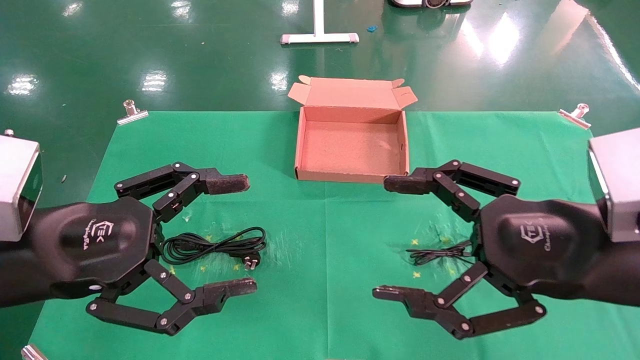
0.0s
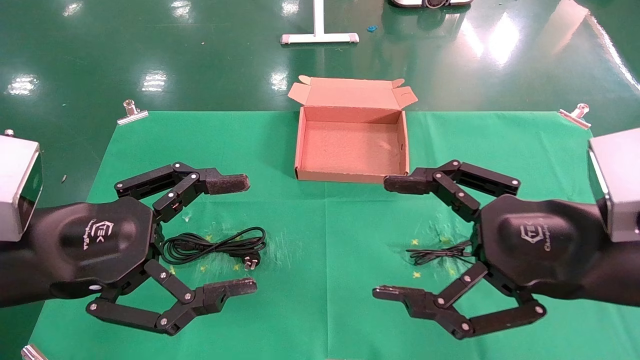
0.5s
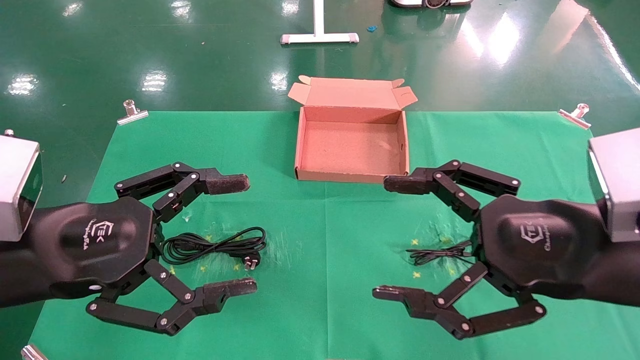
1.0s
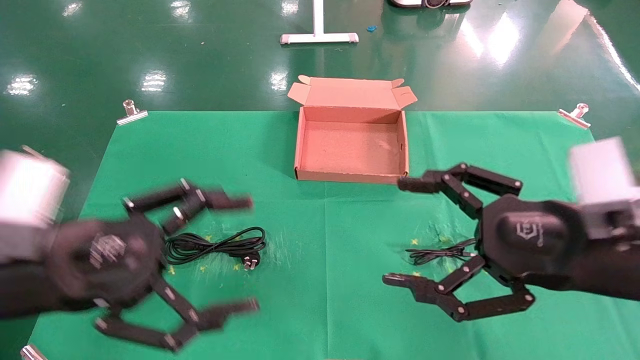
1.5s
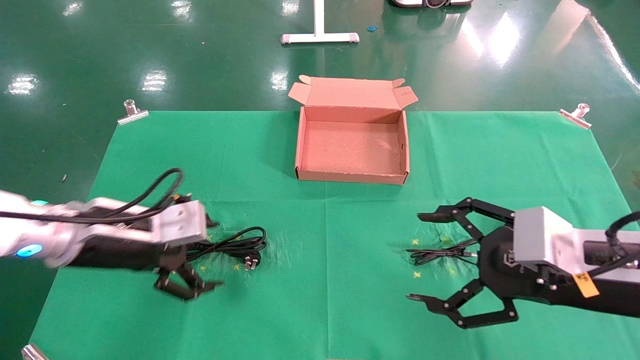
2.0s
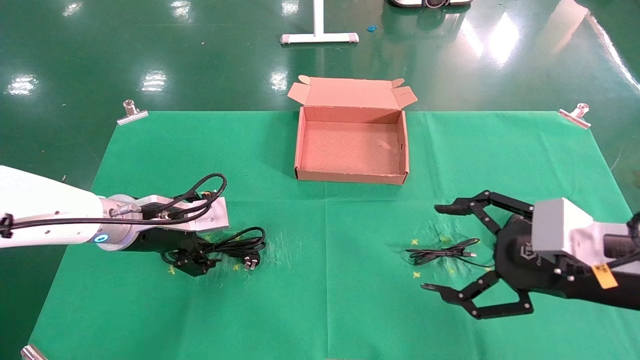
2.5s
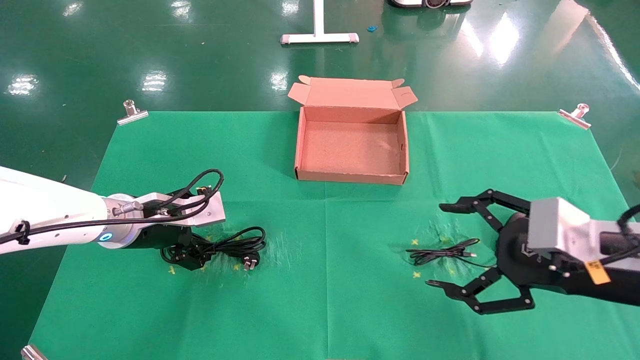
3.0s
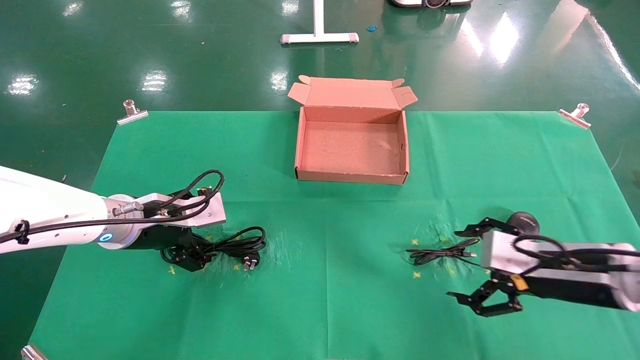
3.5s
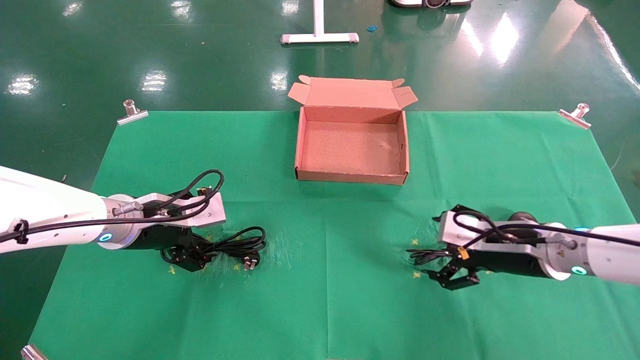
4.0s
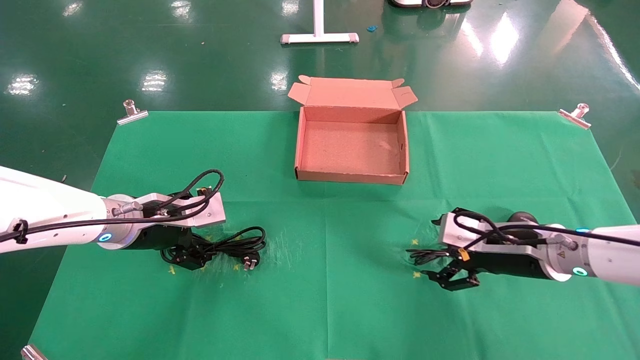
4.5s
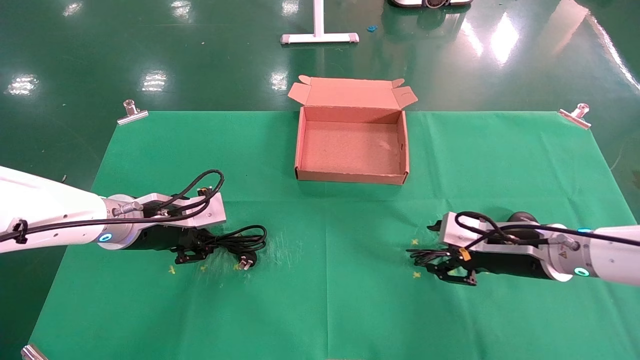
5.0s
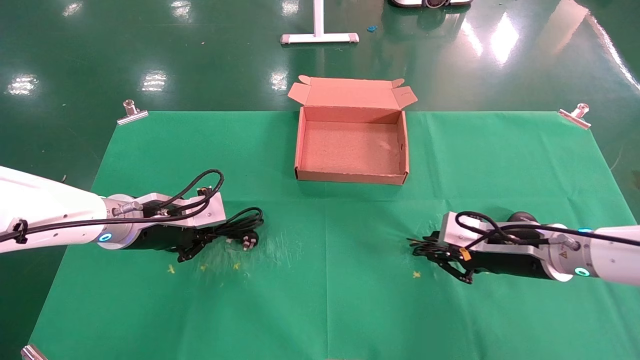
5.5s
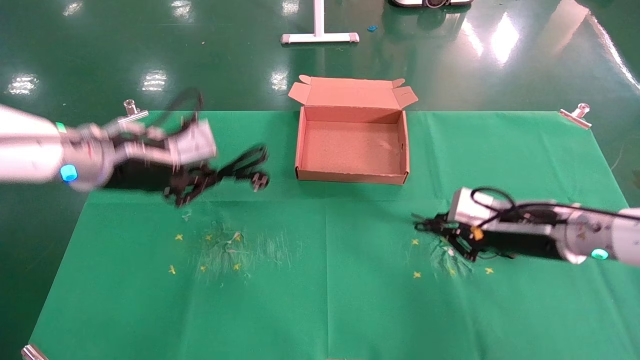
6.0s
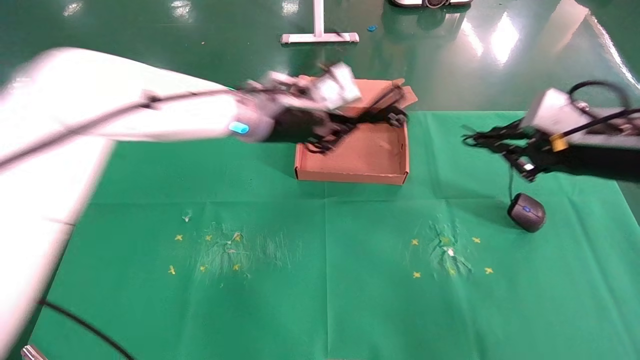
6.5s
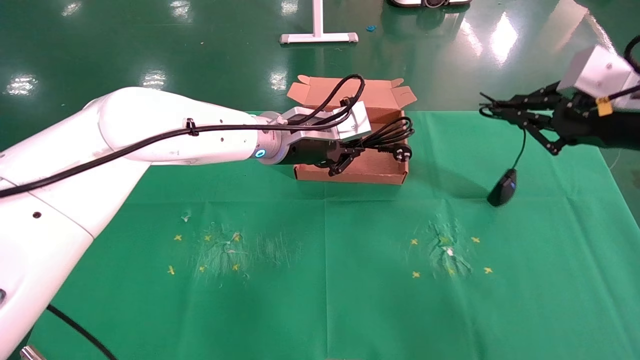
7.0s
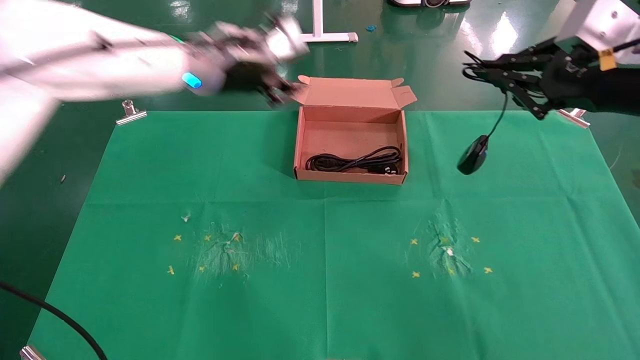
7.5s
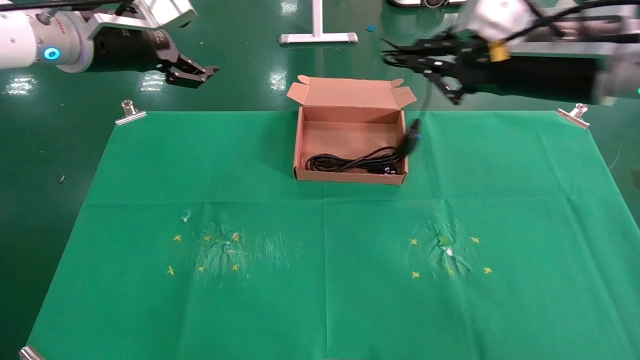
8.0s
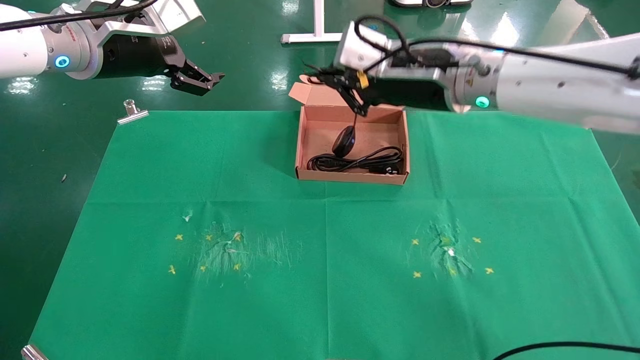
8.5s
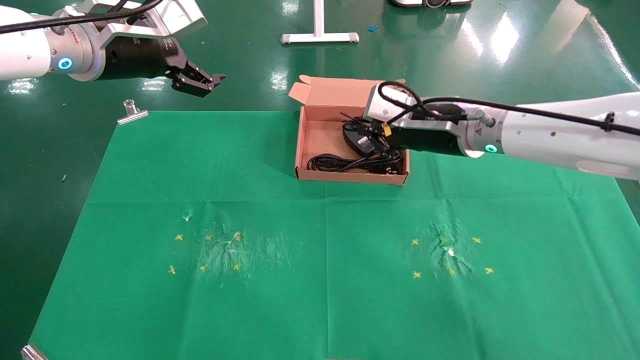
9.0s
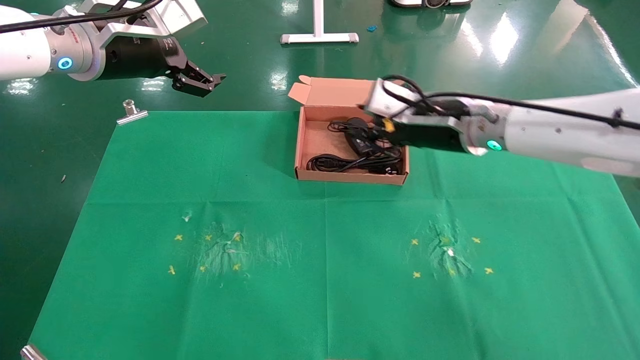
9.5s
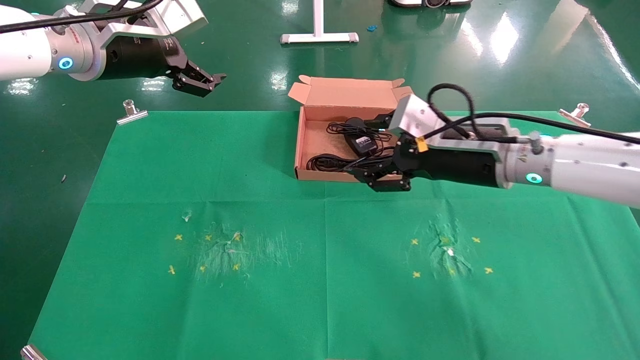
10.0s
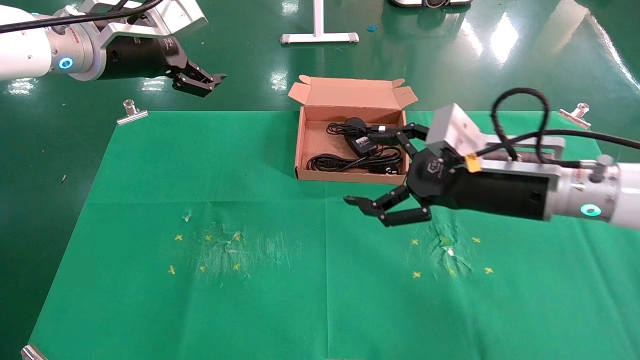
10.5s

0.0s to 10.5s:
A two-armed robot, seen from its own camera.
Task of the whole recording: grasp data cable left put into box grasp mouse right put into box.
Step, 2.0s to 5.5s: Simultaneously pick up the mouse and power cord from the accessory packaging area.
Step, 6.0s to 9.5s: Place the mouse and power cord into the box.
0.0s to 2.0s: The right gripper moves roughly 5 cm. The left gripper goes approximately 15 cm forward and downward.
2.0s to 4.0s: The left gripper travels forward by approximately 5 cm. Meanwhile the right gripper goes about 15 cm forward and downward.
4.0s to 6.5s: The left gripper goes roughly 20 cm to the right and upward, and closes its fingers. The right gripper moves upward and to the right, roughly 15 cm, and closes.
6.5s to 8.5s: The left gripper is displaced to the left and upward by some 20 cm, and opens its fingers. Meanwhile the right gripper moves to the left and forward, some 20 cm.
8.5s to 10.5s: The right gripper moves backward, downward and to the right, approximately 15 cm, and opens up.

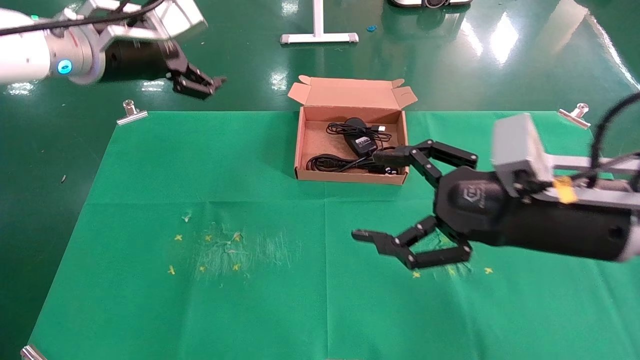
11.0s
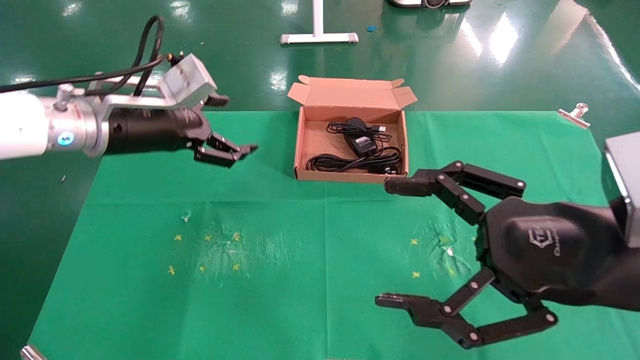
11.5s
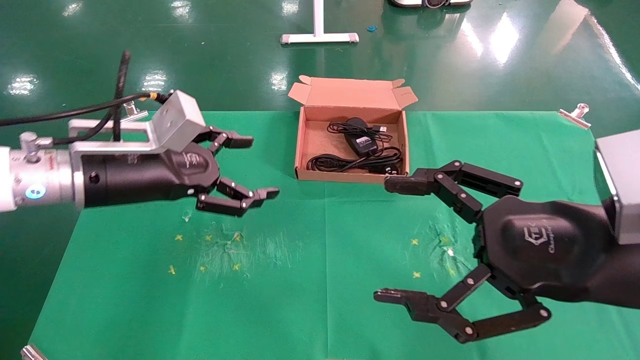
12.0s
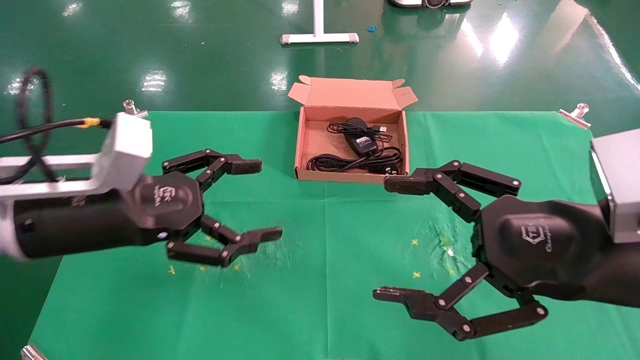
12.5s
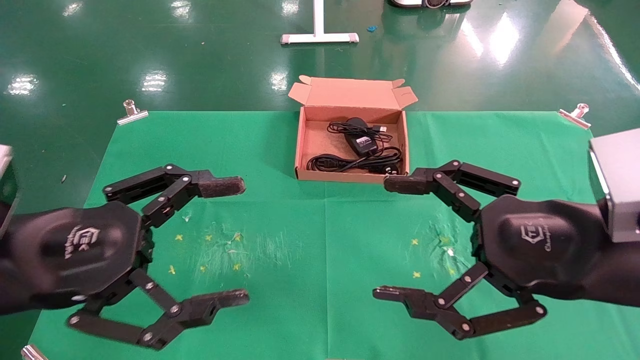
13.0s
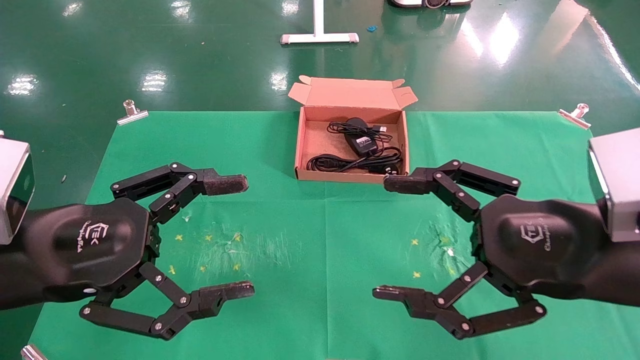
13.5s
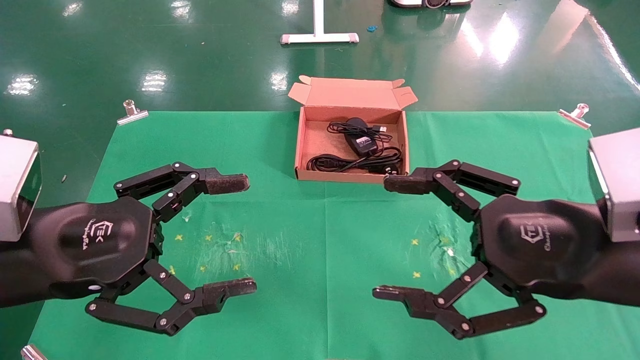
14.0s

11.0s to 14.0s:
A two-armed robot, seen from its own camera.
Task of the whole recording: grasp data cable left put into box grasp mouse right put into box.
11.0s to 12.5s: The left gripper goes approximately 20 cm backward and downward; the right gripper moves backward, about 5 cm.
12.5s to 14.0s: The left gripper shifts some 5 cm backward.
